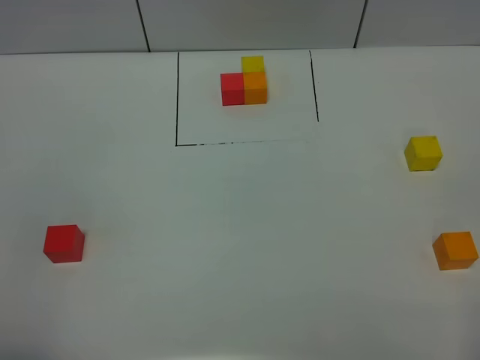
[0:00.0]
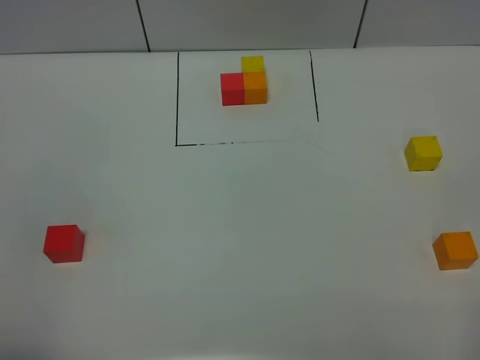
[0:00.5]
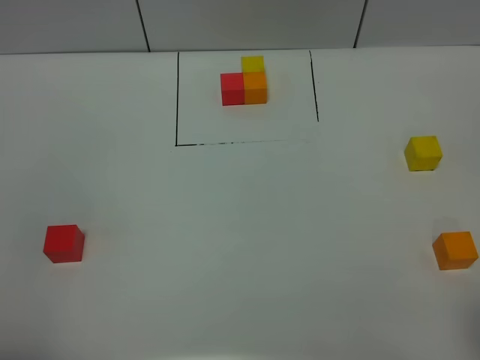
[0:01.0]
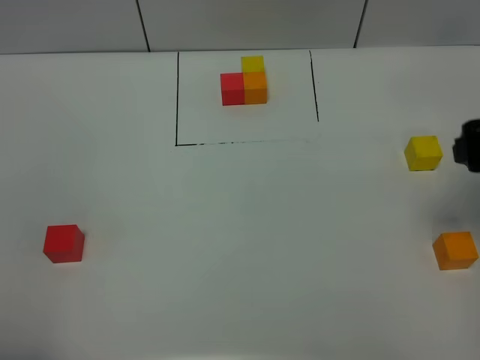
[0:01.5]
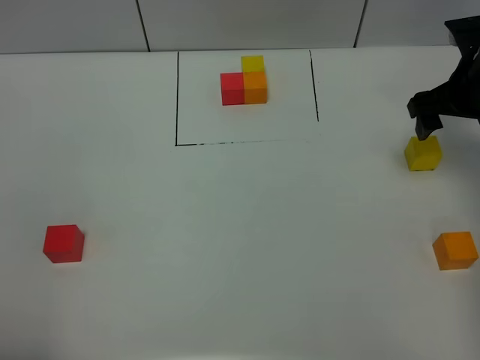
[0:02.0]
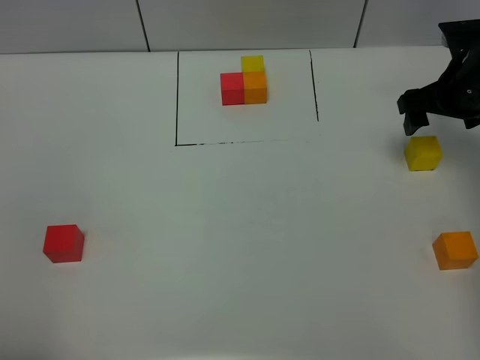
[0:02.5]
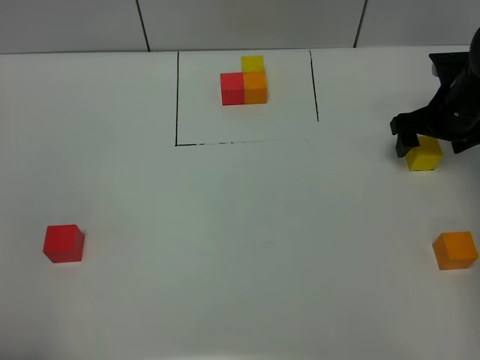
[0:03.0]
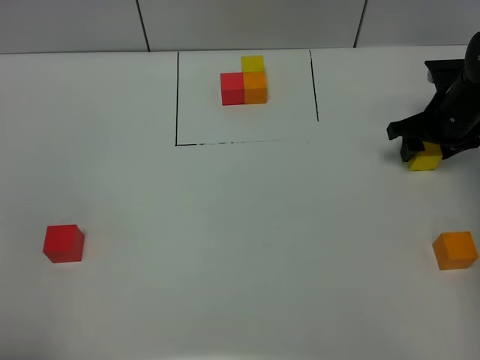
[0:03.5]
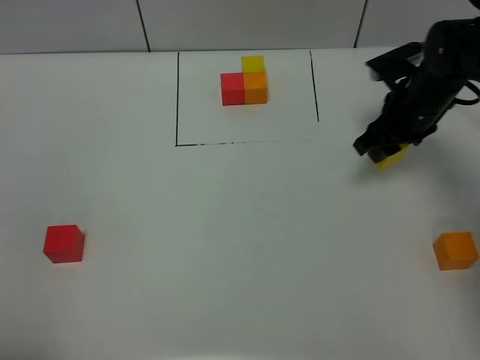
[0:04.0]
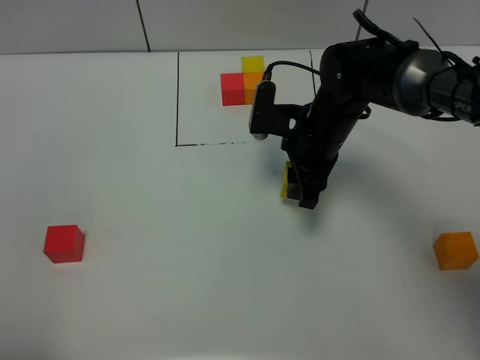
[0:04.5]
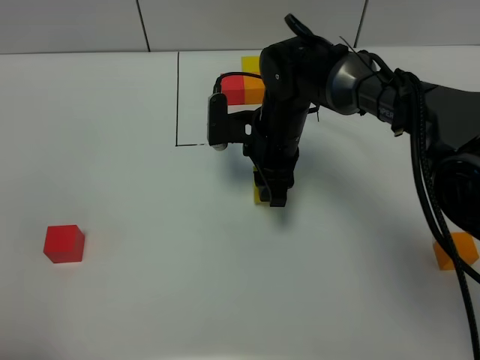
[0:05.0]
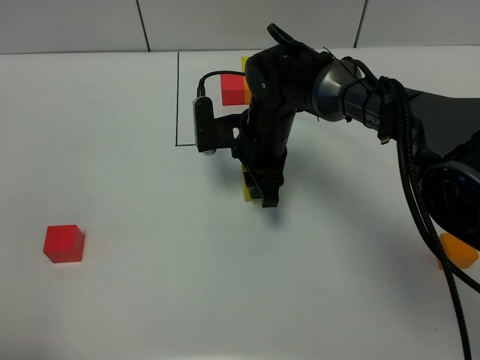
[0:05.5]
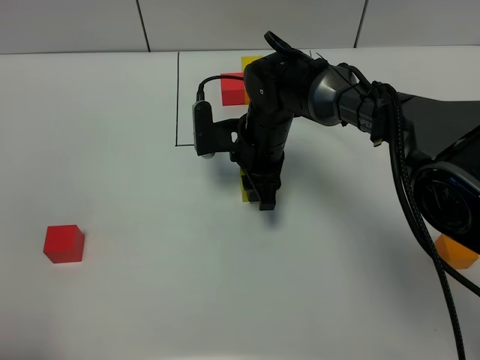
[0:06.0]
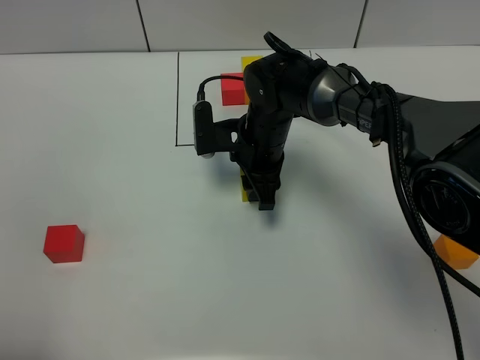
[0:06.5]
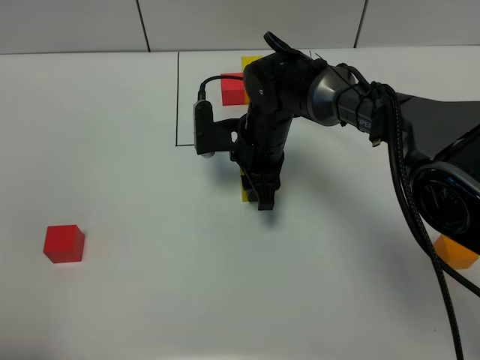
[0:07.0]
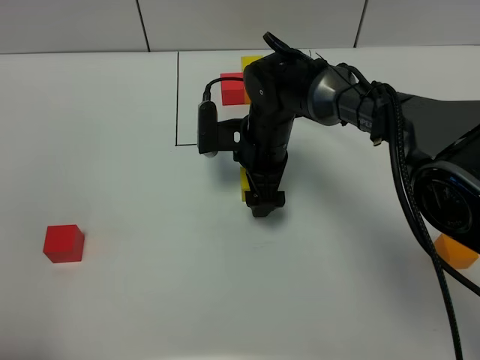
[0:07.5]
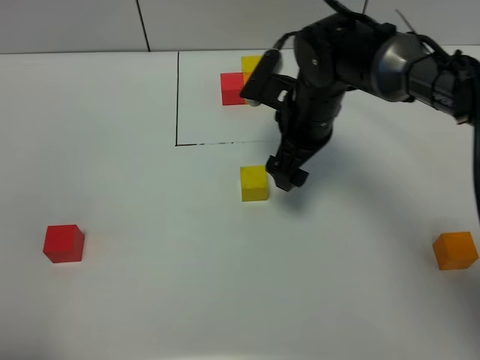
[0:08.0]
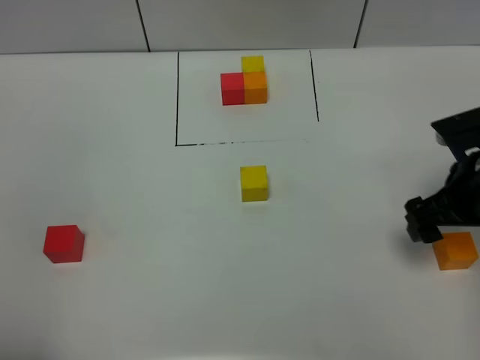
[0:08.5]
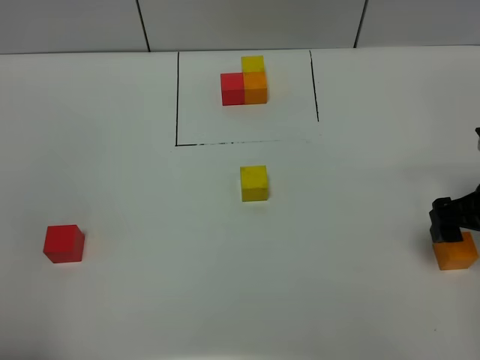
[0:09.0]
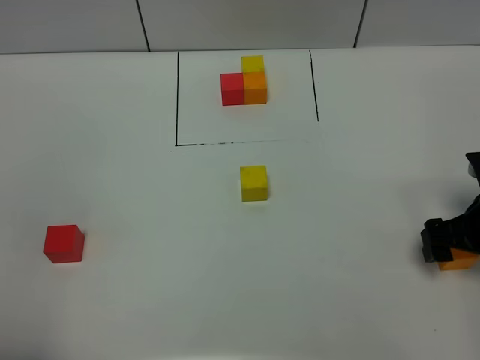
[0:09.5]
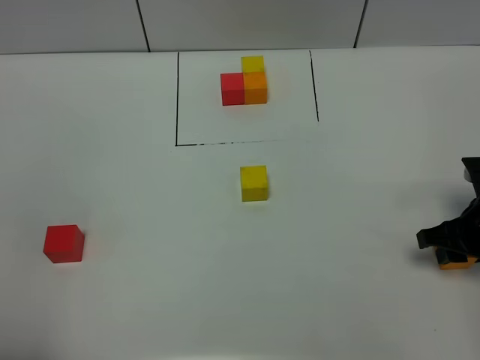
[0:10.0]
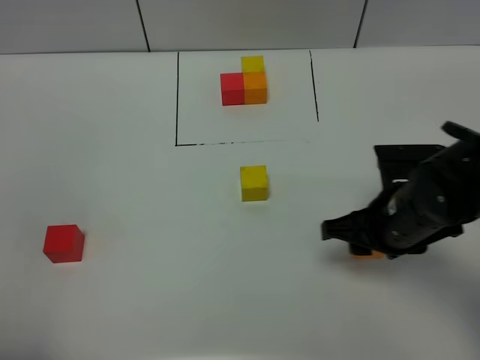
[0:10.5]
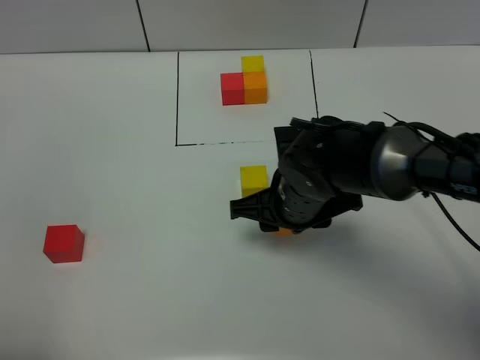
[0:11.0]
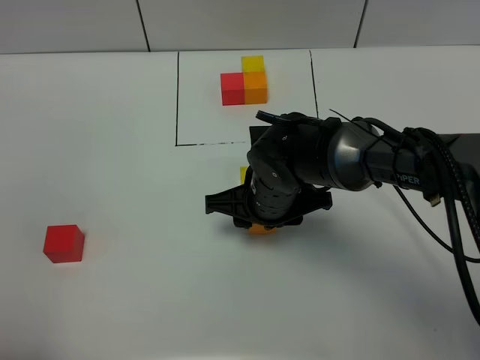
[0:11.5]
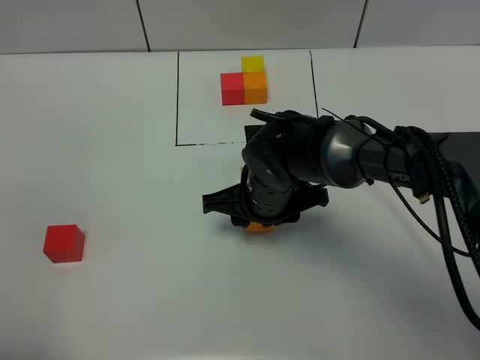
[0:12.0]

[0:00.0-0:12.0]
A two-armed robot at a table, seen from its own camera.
Task of the whole recording: According to the building block template in front, assemble the scattered blocks together.
Step, 0:00.0 to 0:07.5: Put the yellow build block in the center of the table.
0:00.0 to 0:02.0: The right gripper travels forward by some 40 cm.
0:02.0 to 0:04.0: The right gripper travels to the left and downward by about 10 cm, and closes its fingers.
0:04.0 to 0:06.0: The right gripper heads to the left, covering about 20 cm.
0:06.0 to 0:08.0: The right gripper travels to the right and upward by some 10 cm, and opens up.
0:08.0 to 0:10.0: The right gripper moves to the right and backward, some 25 cm, and closes up.
0:10.0 to 0:12.0: The right gripper moves to the left, roughly 25 cm.

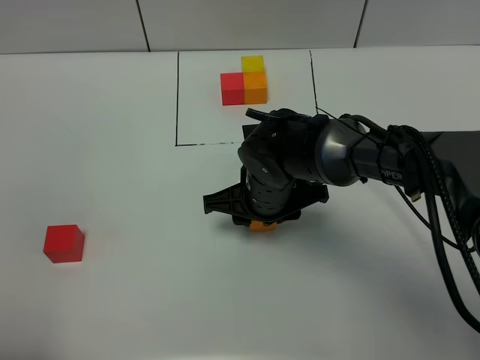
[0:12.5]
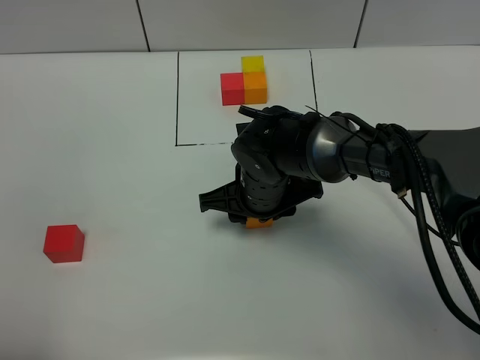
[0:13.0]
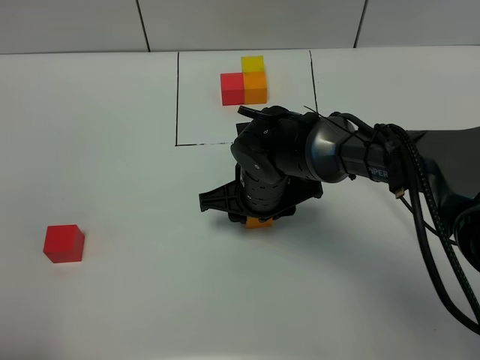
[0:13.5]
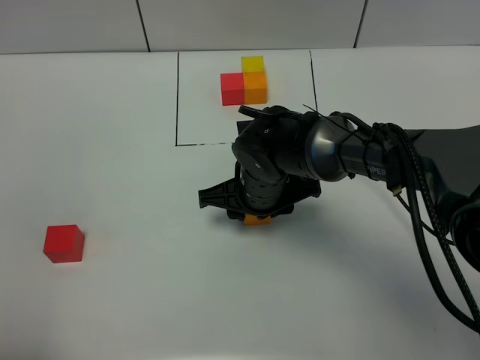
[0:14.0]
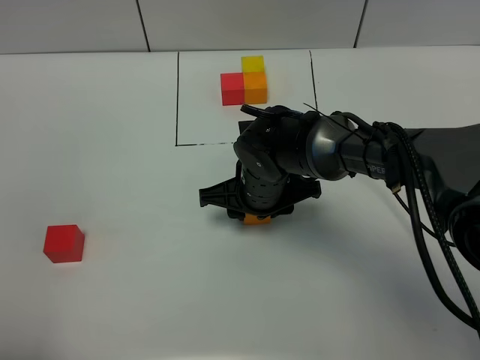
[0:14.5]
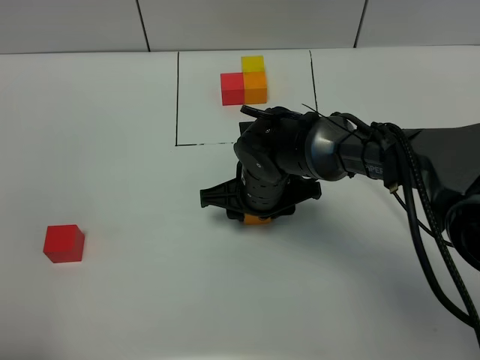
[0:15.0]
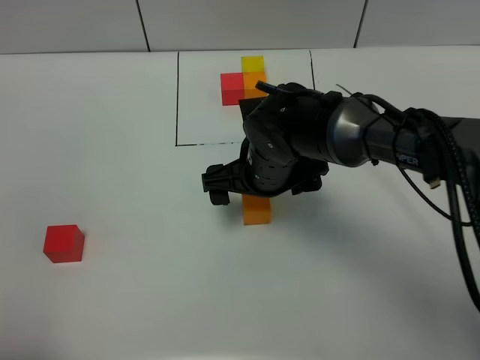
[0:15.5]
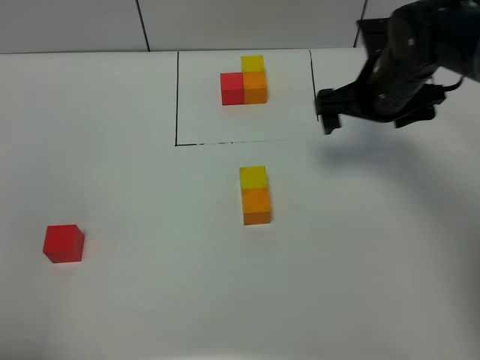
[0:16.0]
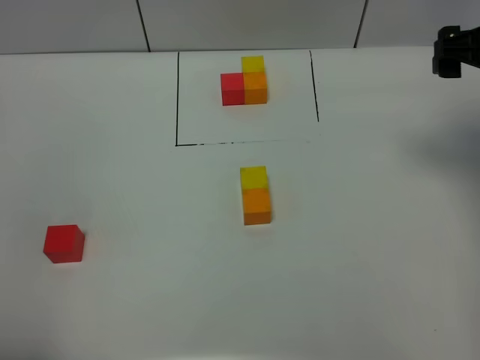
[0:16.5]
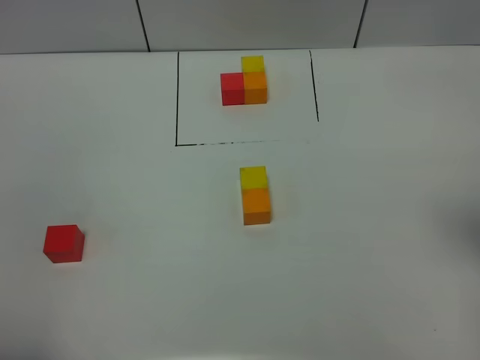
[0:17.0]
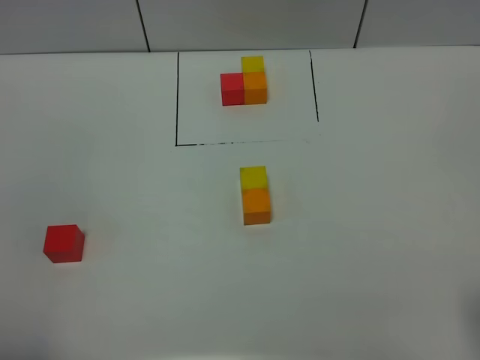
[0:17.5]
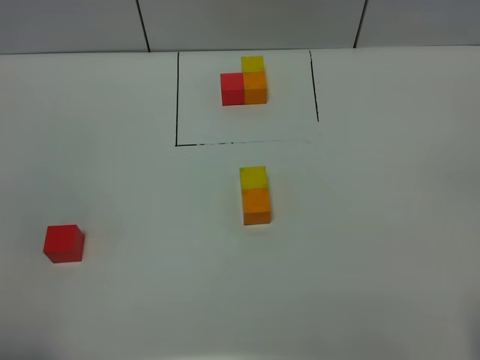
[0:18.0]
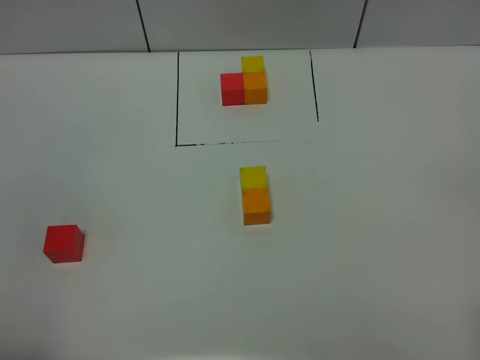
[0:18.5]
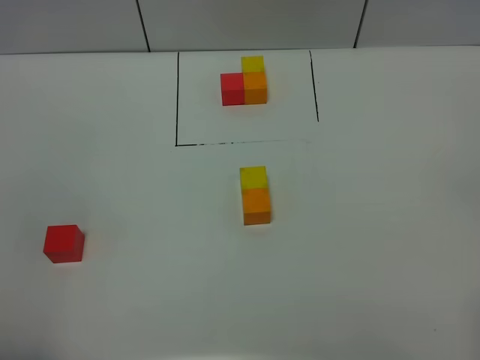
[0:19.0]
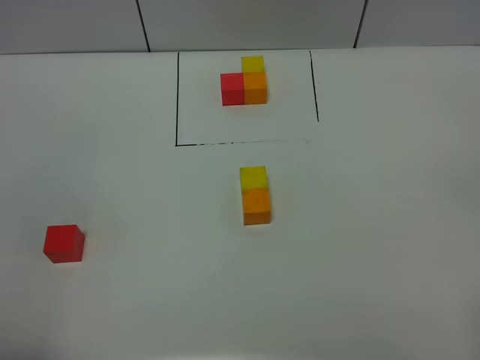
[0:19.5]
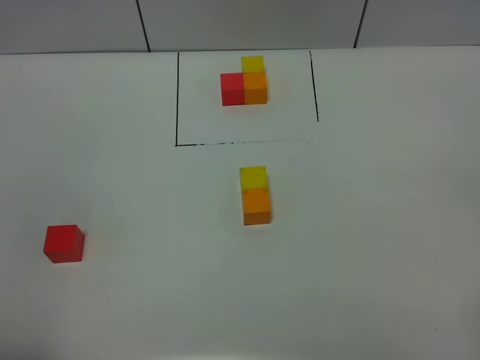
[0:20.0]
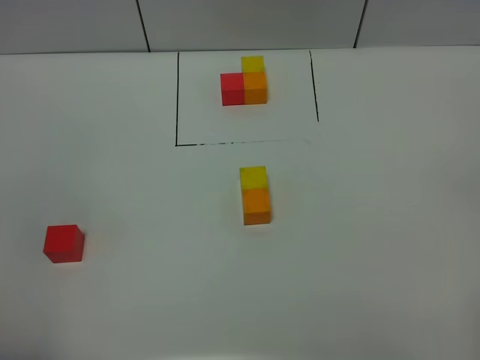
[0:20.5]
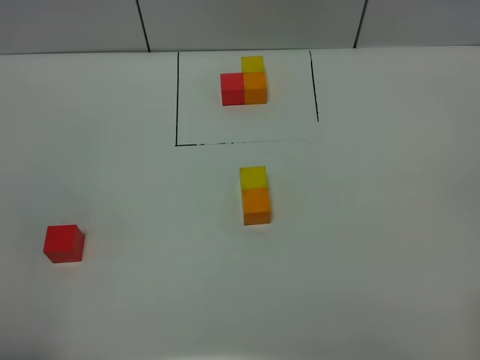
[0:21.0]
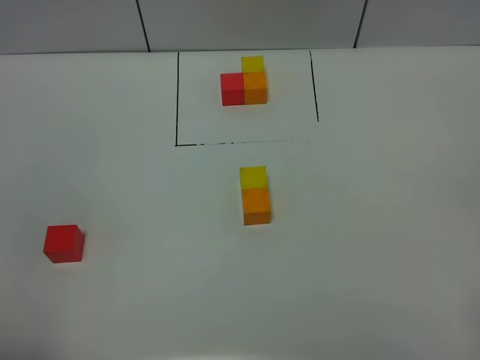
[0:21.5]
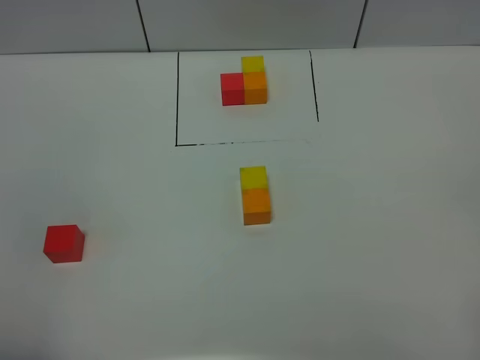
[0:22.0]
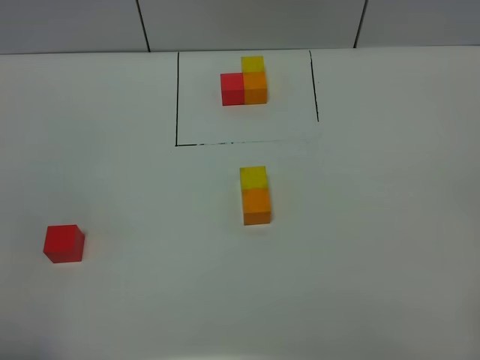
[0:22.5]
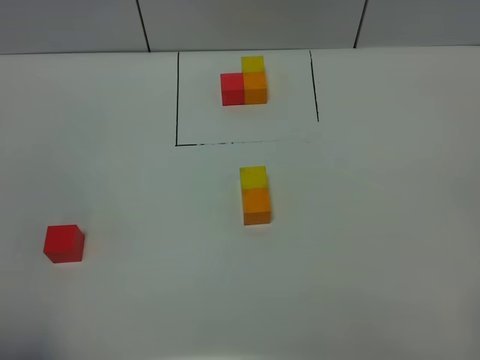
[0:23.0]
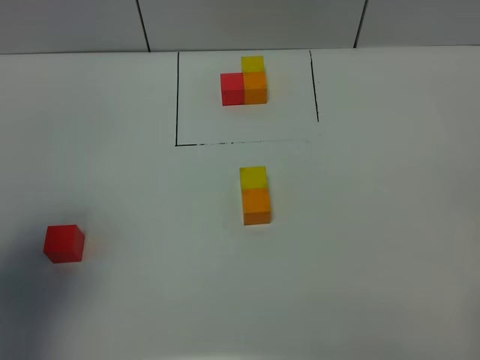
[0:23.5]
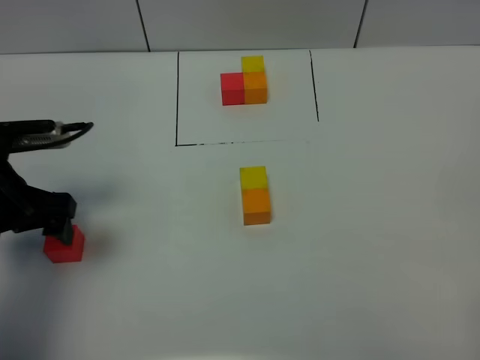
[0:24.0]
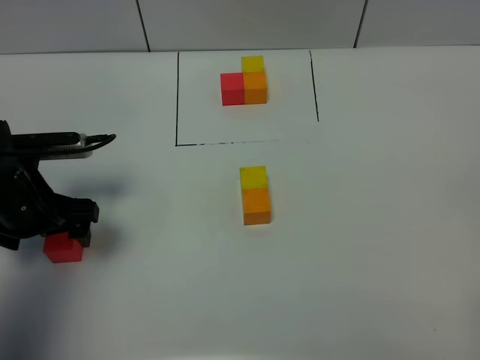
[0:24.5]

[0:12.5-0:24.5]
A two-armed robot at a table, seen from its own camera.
Task of the whole recording: According to the building block template in front, assemble the scattered blocks together.
Step, 0:12.5 to 0:15.0: Put the orange build block on the behind of the yellow build block.
0:12.5 to 0:14.5: The grippers stay close to where they were, moving slightly.
0:14.5 to 0:16.5: The right gripper travels to the right and upward by roughly 35 cm, and opens up.
0:16.5 to 0:18.5: The right gripper goes approximately 35 cm backward.
0:18.5 to 0:20.5: Both grippers stay about where they are.
0:22.5 to 0:24.5: The left gripper is displaced forward and downward by about 30 cm, and opens its fingers.

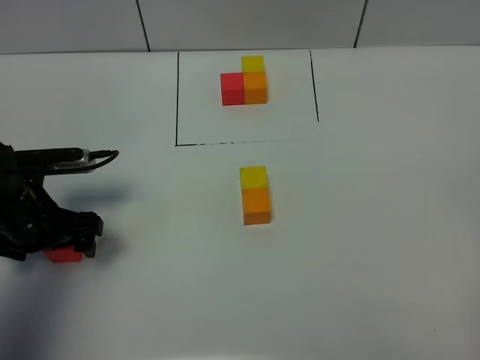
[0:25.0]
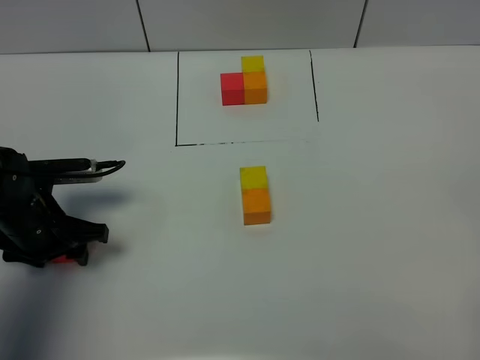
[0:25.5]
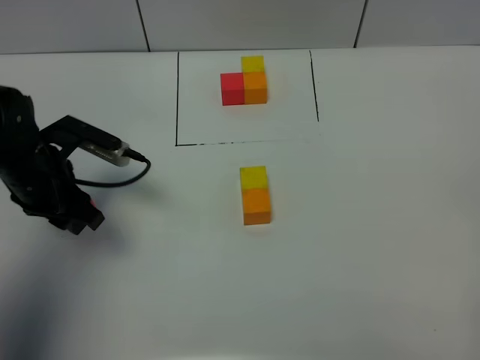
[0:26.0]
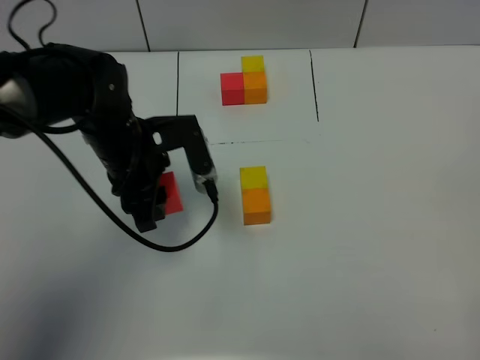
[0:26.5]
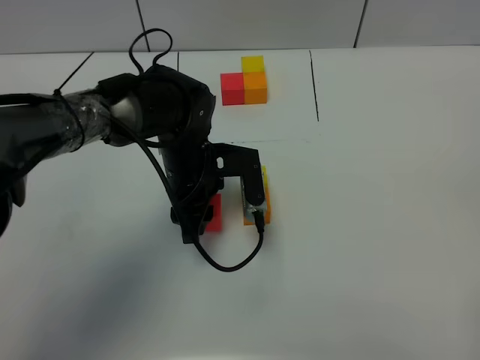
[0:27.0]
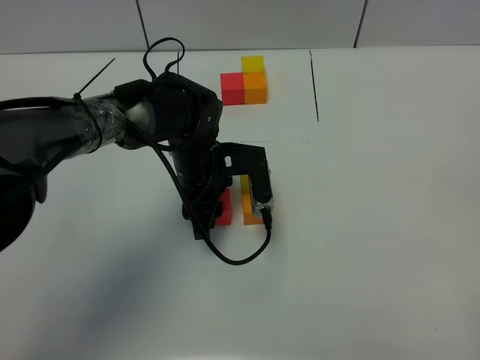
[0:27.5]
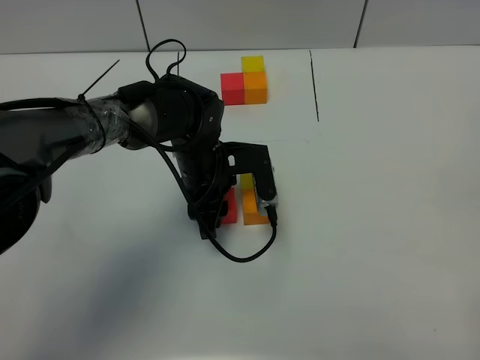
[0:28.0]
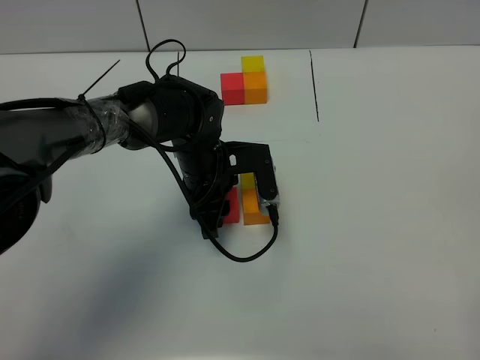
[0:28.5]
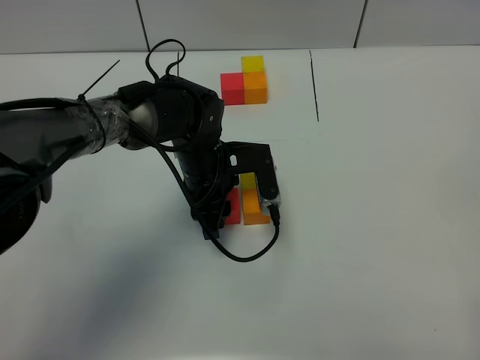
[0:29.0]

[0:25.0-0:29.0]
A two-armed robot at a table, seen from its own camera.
Task of the whole recording: According to the building block template in front, assemble the scattered blocks together.
0:25.0 to 0:27.0: The left gripper heads to the right, covering some 20 cm, and closes.
0:27.0 to 0:29.0: The grippers stay close to where they were, moving slightly.
